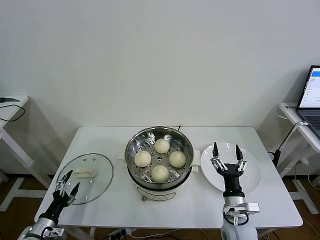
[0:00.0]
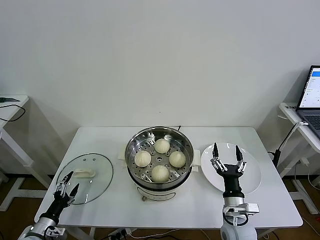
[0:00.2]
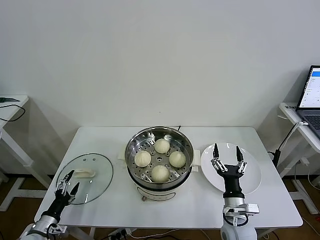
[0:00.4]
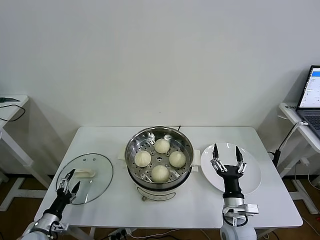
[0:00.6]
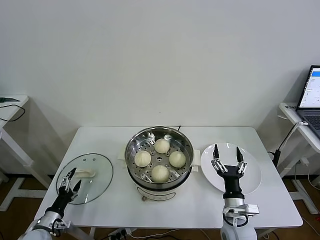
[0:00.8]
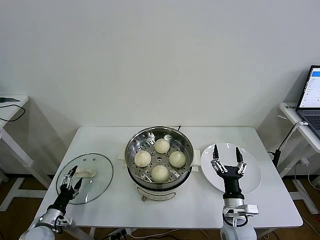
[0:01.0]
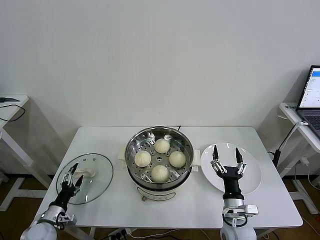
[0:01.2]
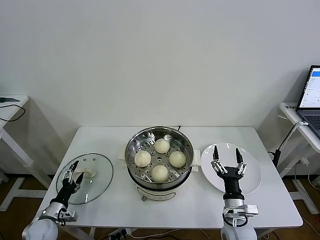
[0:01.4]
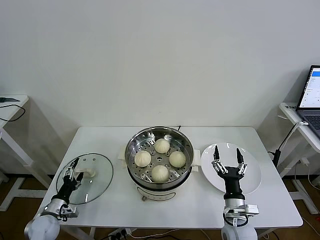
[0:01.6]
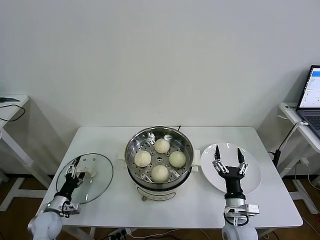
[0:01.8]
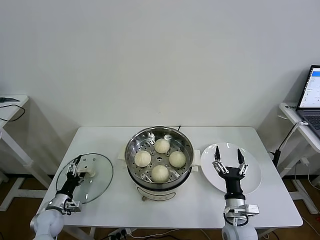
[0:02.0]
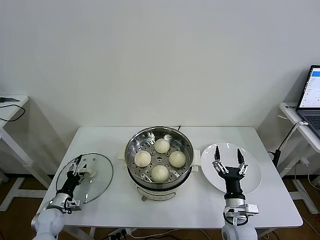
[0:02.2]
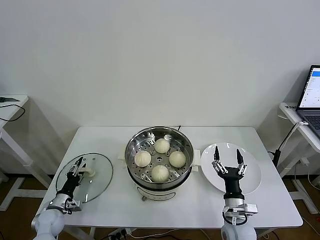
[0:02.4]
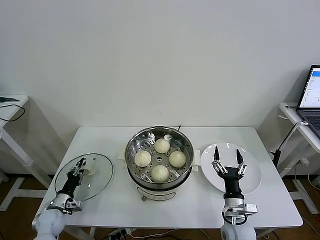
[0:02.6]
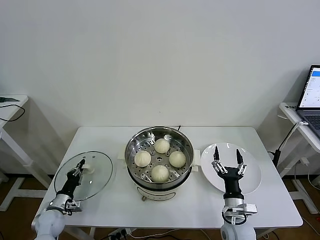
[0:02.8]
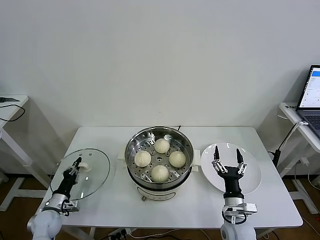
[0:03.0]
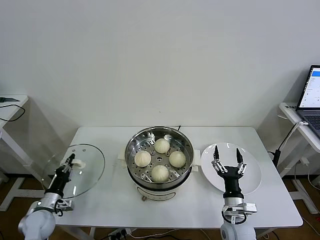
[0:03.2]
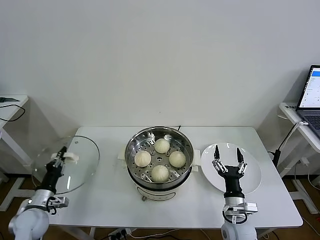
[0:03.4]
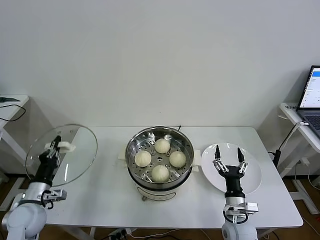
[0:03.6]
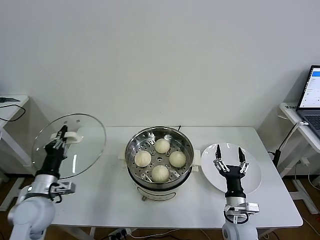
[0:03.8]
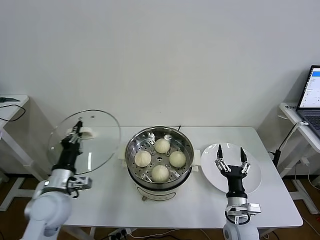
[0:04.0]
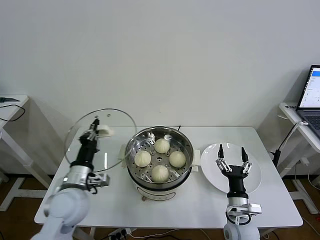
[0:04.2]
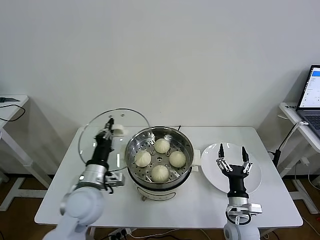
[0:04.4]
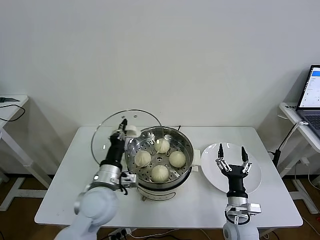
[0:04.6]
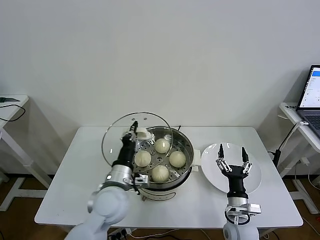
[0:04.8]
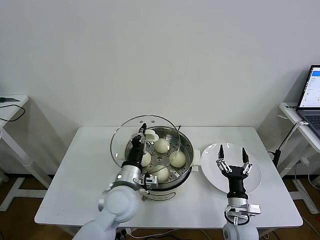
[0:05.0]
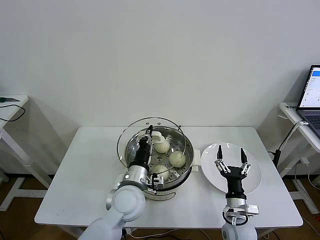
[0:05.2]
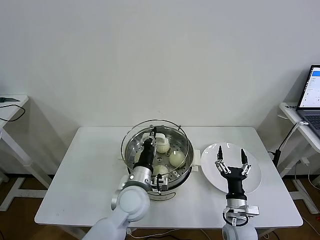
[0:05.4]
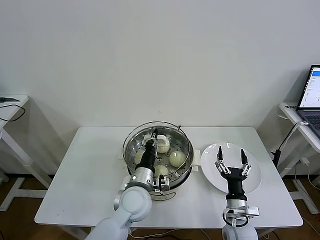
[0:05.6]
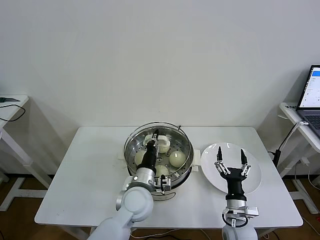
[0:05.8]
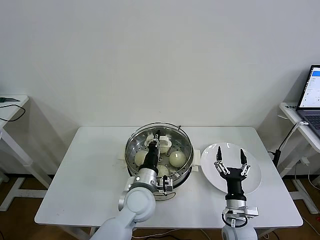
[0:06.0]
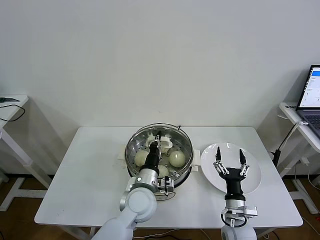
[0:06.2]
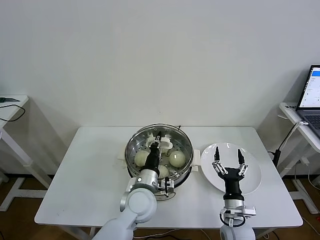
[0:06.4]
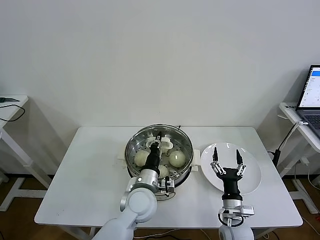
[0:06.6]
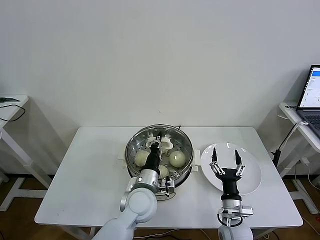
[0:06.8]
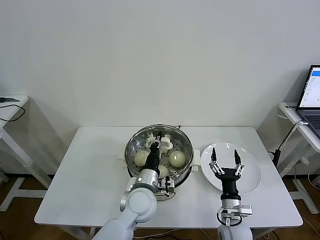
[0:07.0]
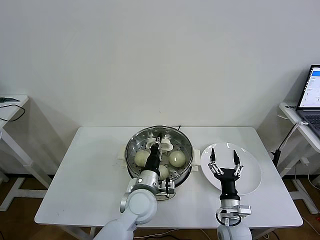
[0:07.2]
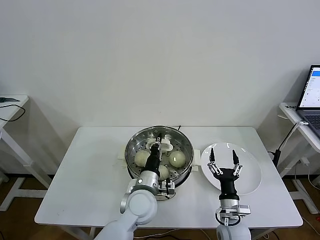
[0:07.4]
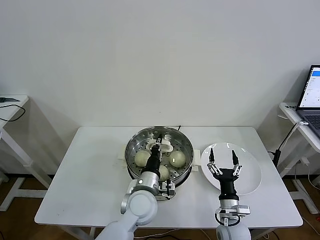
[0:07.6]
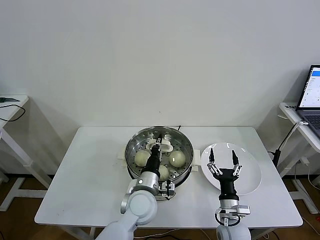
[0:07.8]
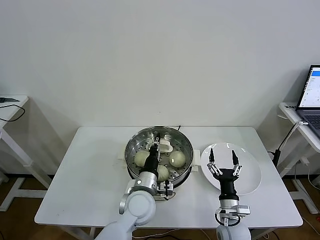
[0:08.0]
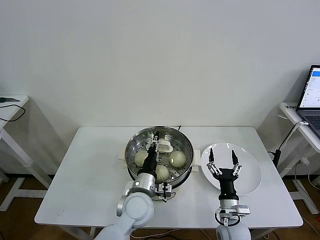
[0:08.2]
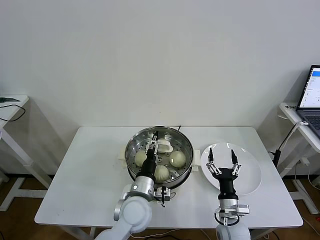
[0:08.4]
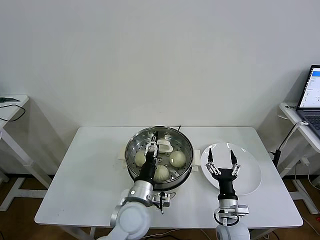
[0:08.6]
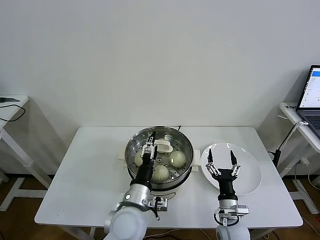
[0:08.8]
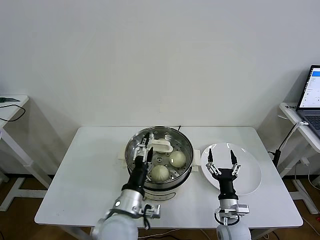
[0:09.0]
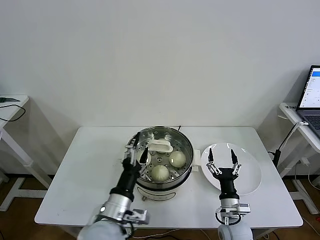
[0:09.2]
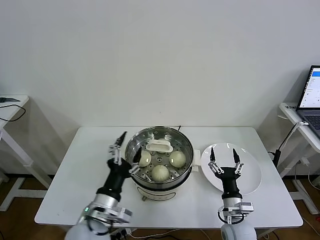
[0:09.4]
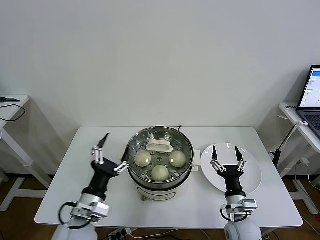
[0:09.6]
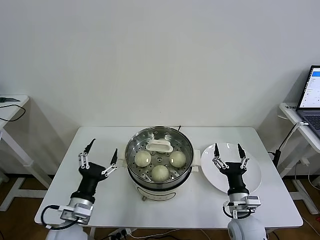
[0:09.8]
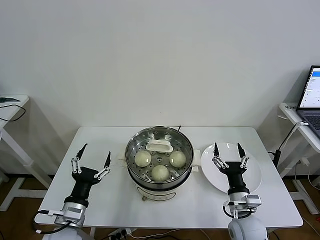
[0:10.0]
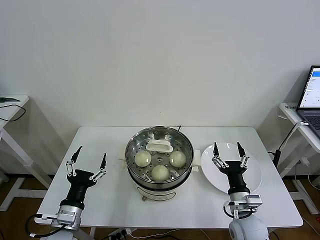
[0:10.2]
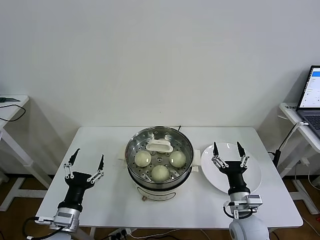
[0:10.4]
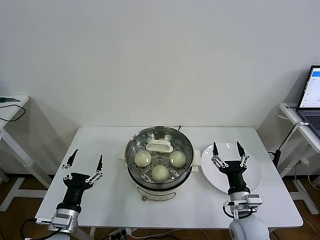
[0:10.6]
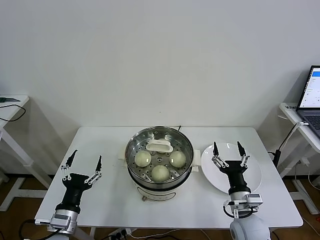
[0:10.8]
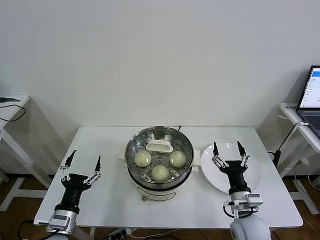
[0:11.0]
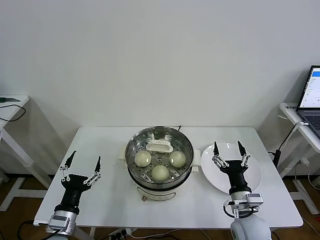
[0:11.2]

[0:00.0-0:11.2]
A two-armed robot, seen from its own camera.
Task of the whole recording: take steamed baozi put them in steamer then cover it.
Step, 0:00.0 to 0:02.8: Grasp the pot lid with left gripper.
Step, 0:03.2 to 0:08.8: Place the pot lid on the steamer with left gripper.
0:00.0 to 0:01.6: The left gripper heads forward, covering roughly 5 cm.
0:01.6 to 0:03.2: The left gripper closes its fingers.
0:03.2 to 0:04.8: The left gripper shifts approximately 35 cm to the right and upward.
0:04.8 to 0:06.4: The left gripper heads to the right and downward, covering some 10 cm.
0:06.4 to 0:08.0: The grippers move only a little.
0:08.0 to 0:09.6: The left gripper goes about 20 cm to the left, backward and upward, and opens up.
0:09.6 to 0:11.2: The right gripper goes about 5 cm upward. The left gripper moves to the left and downward, about 10 cm.
